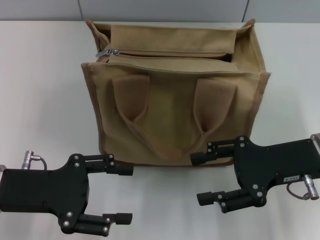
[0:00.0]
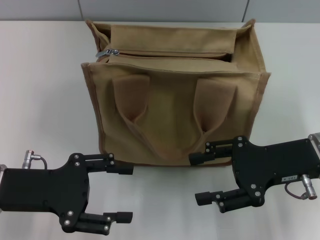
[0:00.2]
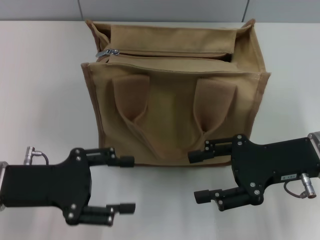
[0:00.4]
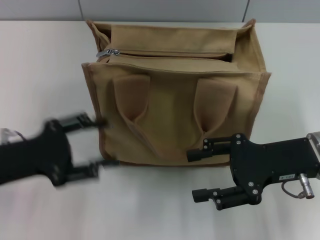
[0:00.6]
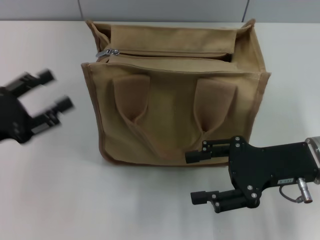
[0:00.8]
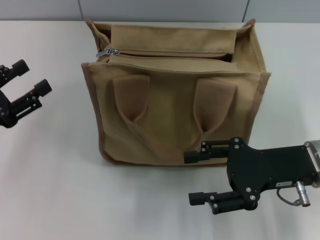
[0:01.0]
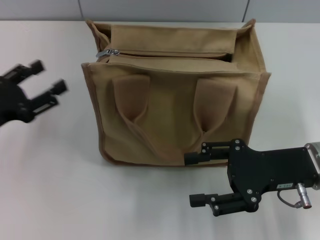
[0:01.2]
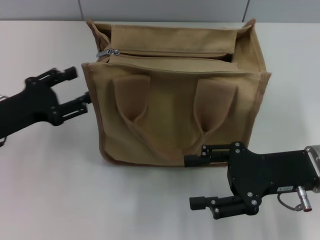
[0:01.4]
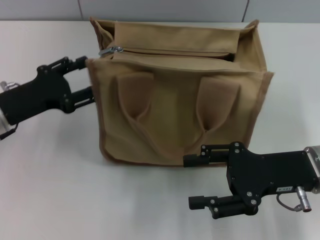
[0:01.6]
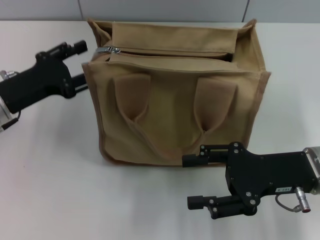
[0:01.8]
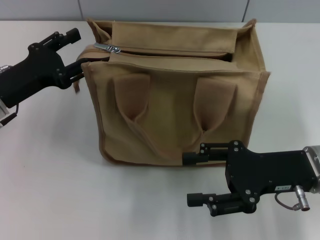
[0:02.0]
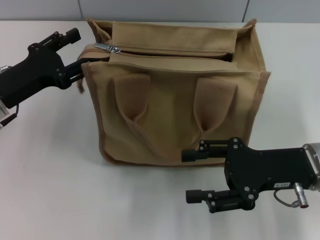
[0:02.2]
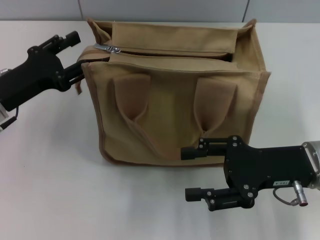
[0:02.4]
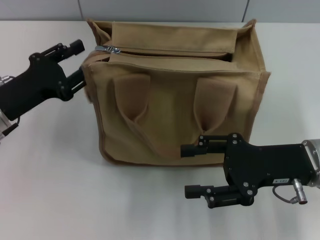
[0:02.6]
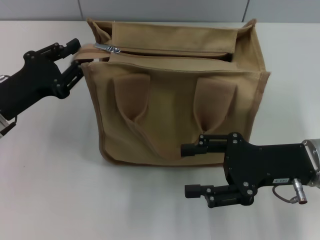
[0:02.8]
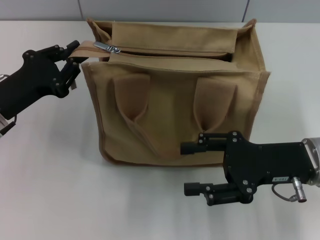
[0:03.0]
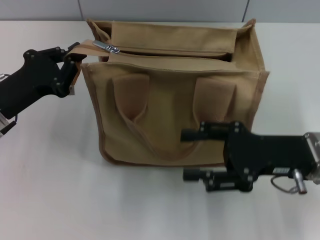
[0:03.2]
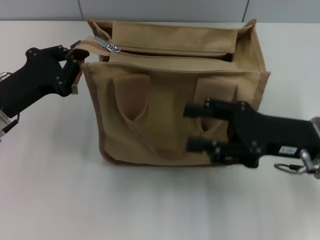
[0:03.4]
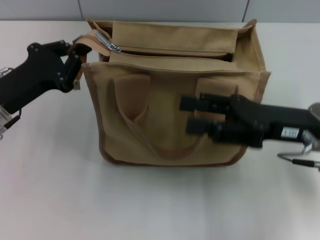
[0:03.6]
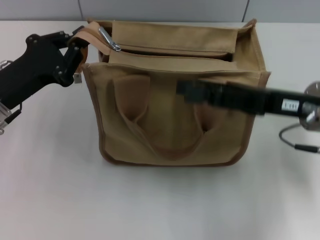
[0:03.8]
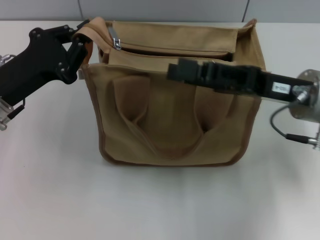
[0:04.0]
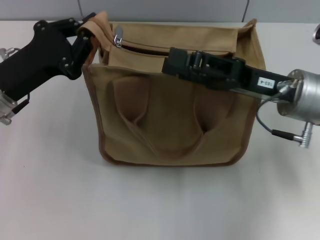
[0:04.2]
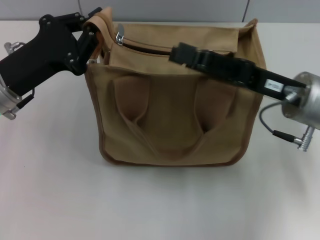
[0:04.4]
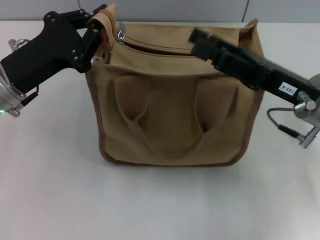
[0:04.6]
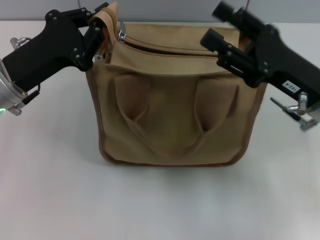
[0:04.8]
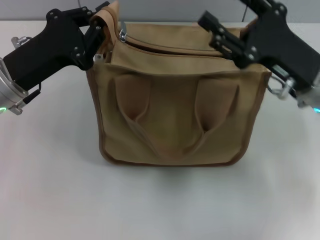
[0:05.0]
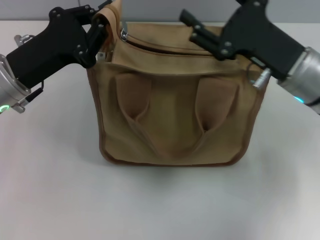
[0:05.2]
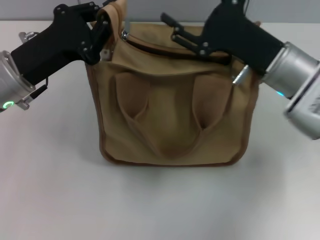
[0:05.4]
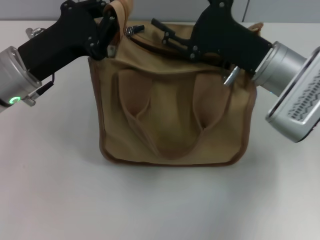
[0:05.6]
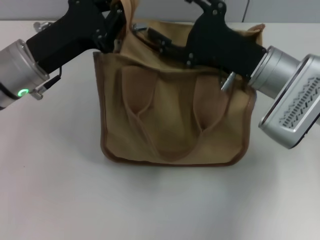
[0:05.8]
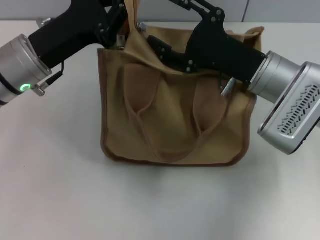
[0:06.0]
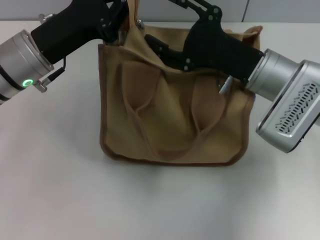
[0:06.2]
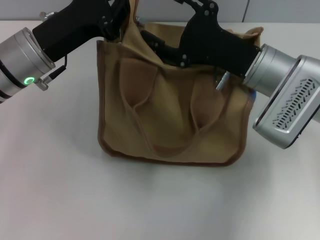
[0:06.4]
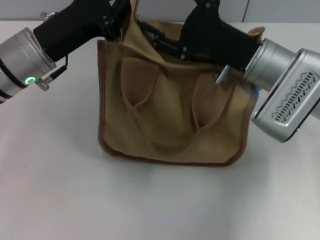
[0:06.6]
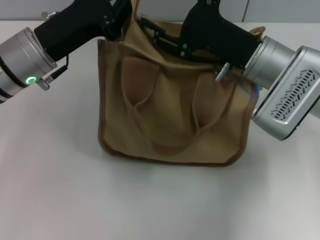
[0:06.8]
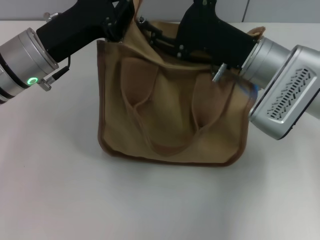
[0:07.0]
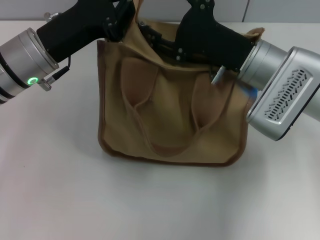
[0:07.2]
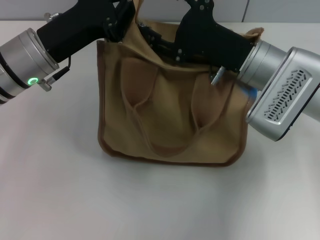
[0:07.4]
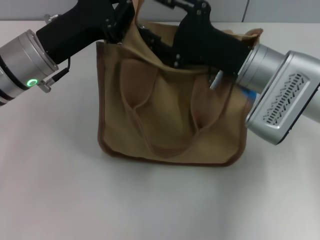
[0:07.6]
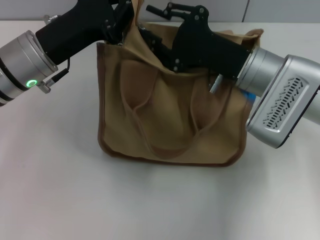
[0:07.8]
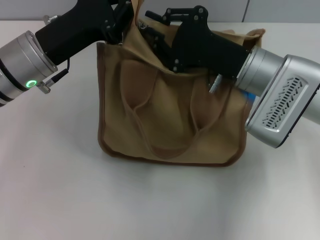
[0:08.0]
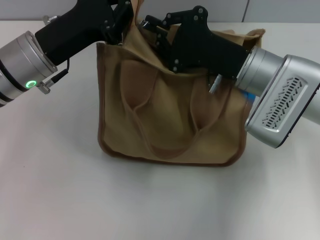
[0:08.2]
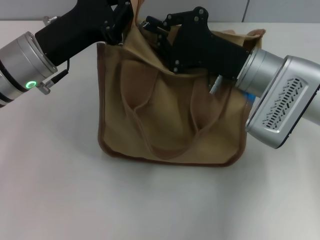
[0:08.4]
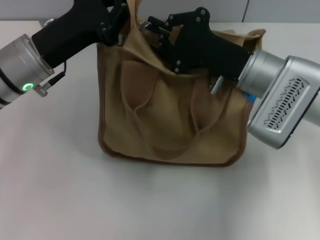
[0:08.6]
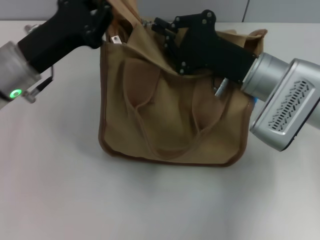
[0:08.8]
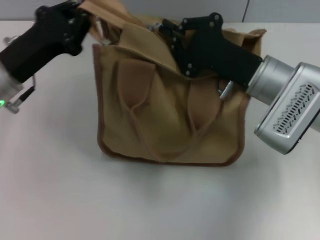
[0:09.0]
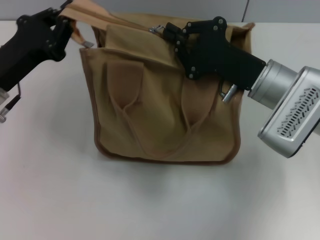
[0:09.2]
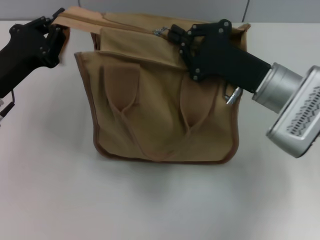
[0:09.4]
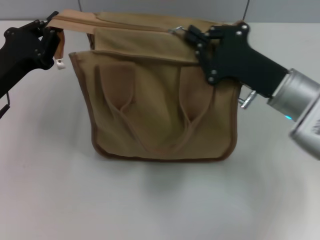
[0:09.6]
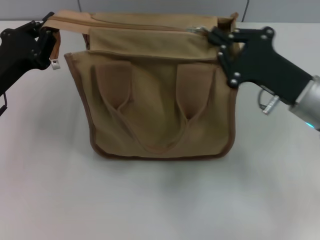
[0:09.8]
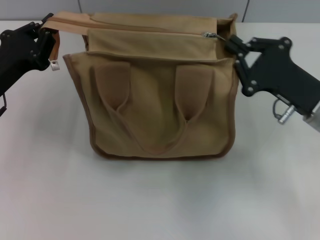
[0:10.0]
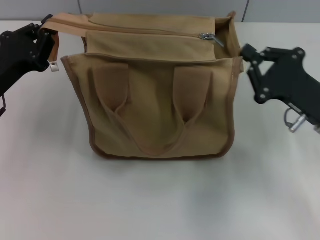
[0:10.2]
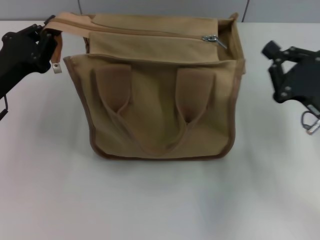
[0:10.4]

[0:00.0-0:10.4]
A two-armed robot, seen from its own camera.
Step, 0:00.0 to 0:10.2: Pull up the zipper with your right hand.
0:00.0 to 0:01.4: The left gripper heads forward, covering some 5 cm.
0:01.4 to 0:03.0: The left gripper closes.
0:03.0 to 0:04.4: The right gripper shifts by roughly 5 cm. Meanwhile the left gripper closes.
0:04.4 to 0:06.0: The right gripper moves about 5 cm; the left gripper changes place by about 5 cm.
0:06.0 to 0:07.4: The grippers move only a little.
0:07.4 to 0:09.0: The left gripper moves approximately 5 cm; the right gripper closes.
0:09.0 to 0:10.4: The right gripper travels to the right and backward by some 15 cm.

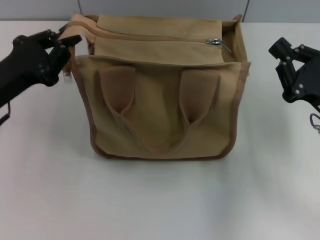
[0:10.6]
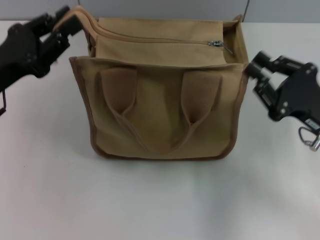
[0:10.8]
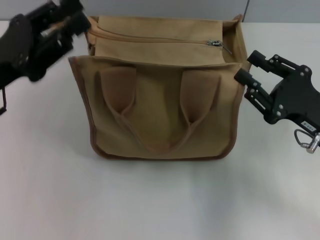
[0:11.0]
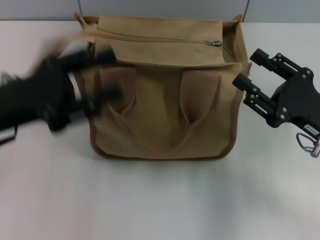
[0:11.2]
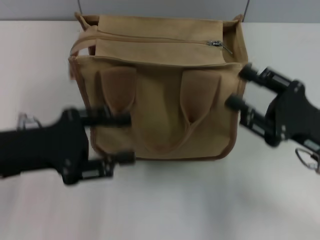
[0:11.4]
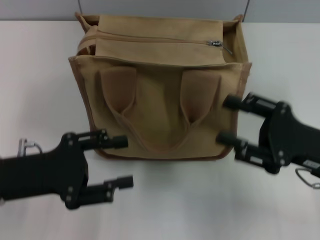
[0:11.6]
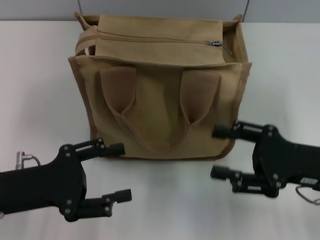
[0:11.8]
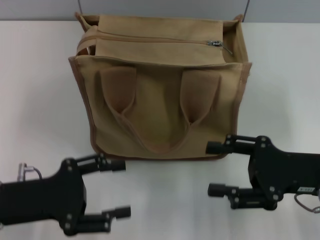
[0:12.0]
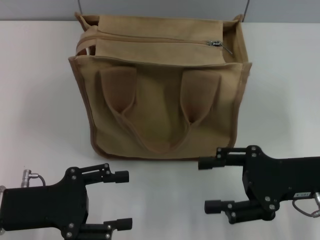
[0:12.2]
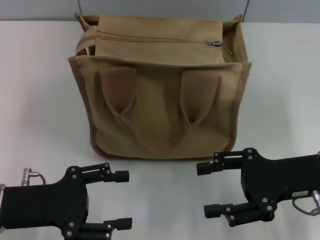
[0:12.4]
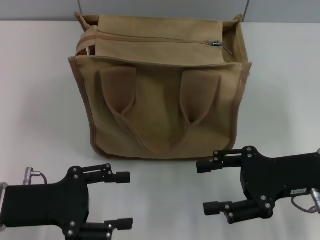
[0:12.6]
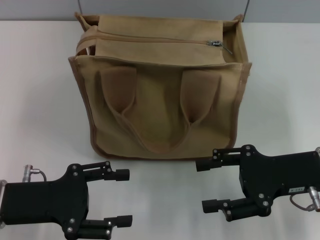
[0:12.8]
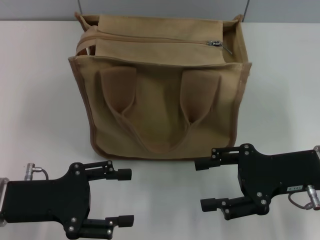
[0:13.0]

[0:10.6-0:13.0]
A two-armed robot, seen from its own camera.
Step, 0:10.6 to 0:11.4: Grab the zipper with your left hand.
0:10.6 to 0:11.8: The left gripper travels backward by approximately 10 cm, and opens up; the right gripper opens its fingers.
0:11.8 to 0:13.0: The grippers make only small movements.

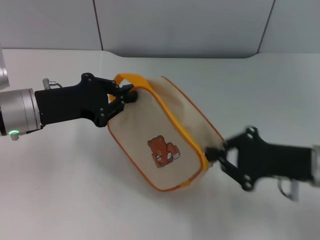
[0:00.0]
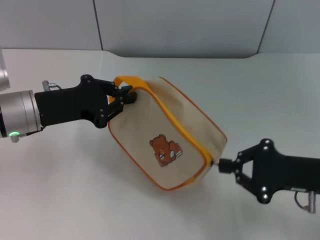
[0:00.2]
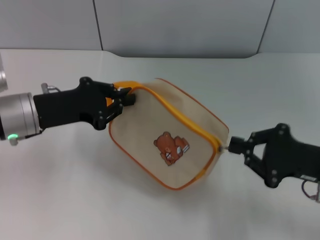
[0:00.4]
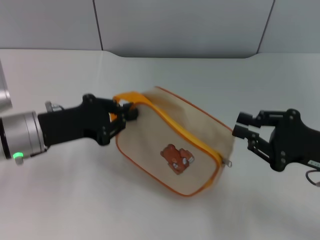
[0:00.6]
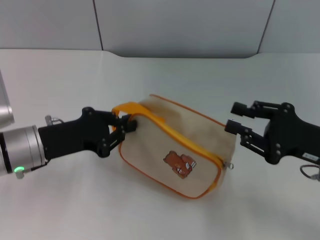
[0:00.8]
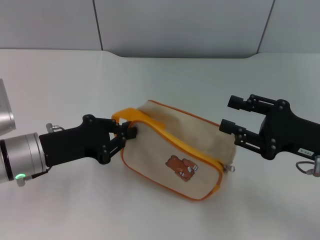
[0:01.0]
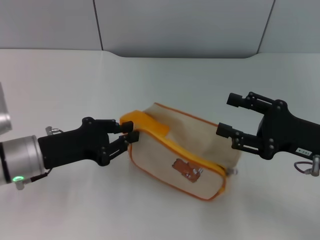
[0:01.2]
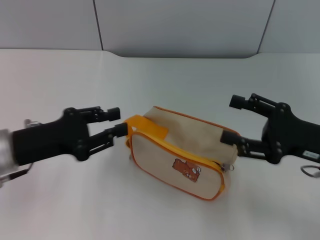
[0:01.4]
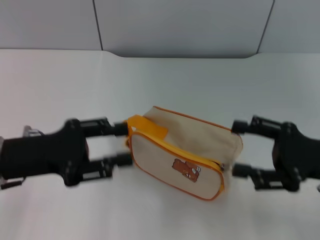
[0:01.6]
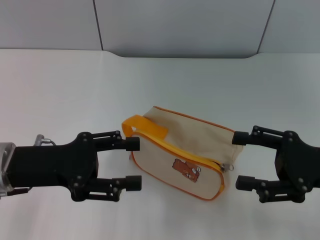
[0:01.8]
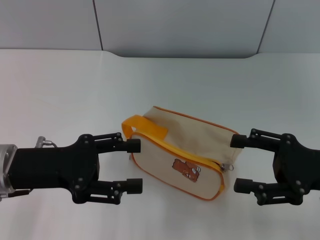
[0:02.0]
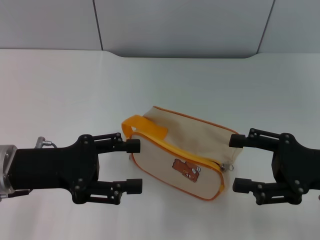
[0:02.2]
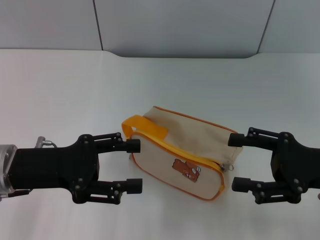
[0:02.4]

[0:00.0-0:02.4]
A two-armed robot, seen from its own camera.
Step, 0:00.8 to 0:01.4: Place the bag on the table with left gripper.
0:00.0 to 0:01.2: The left gripper moves about 5 cm, while the right gripper opens.
0:01.2 to 0:02.4: The left gripper opens. The right gripper opens up.

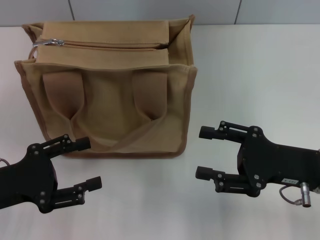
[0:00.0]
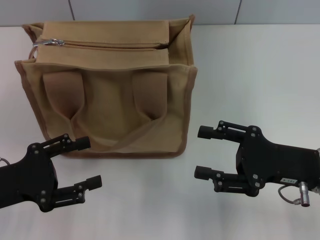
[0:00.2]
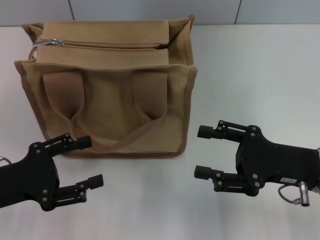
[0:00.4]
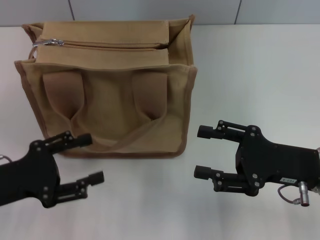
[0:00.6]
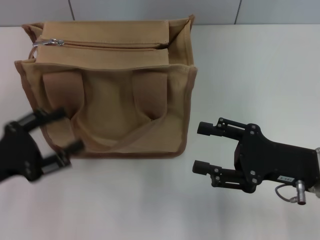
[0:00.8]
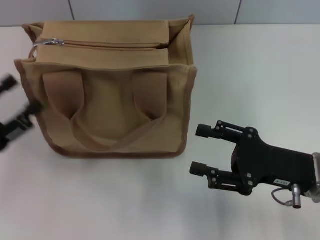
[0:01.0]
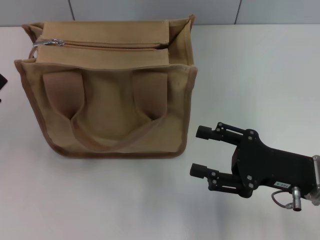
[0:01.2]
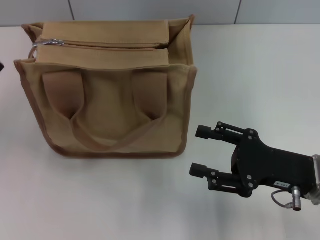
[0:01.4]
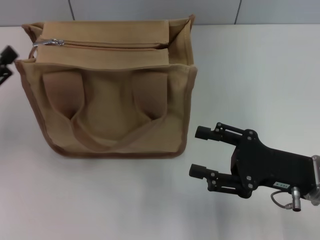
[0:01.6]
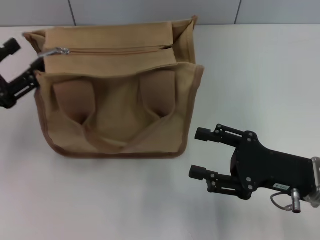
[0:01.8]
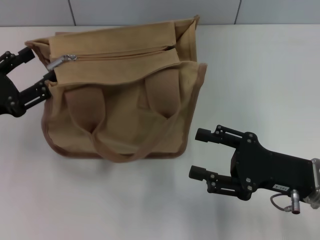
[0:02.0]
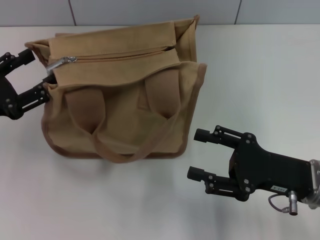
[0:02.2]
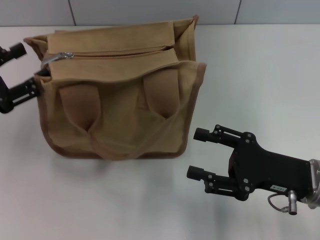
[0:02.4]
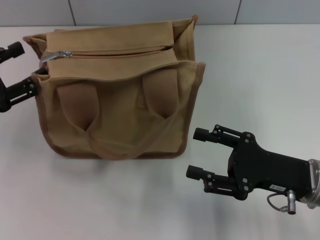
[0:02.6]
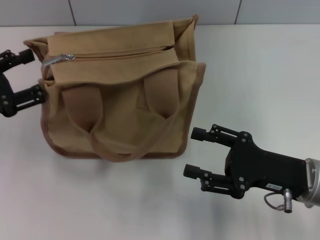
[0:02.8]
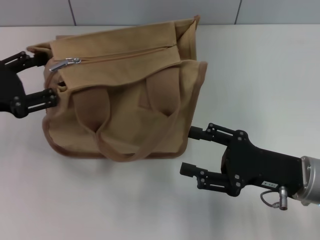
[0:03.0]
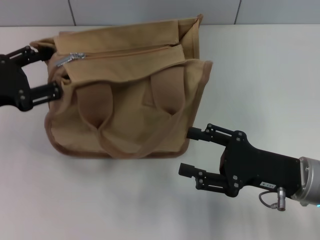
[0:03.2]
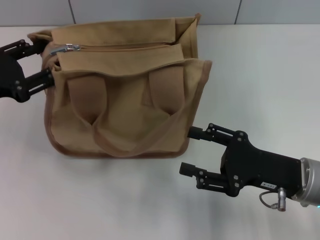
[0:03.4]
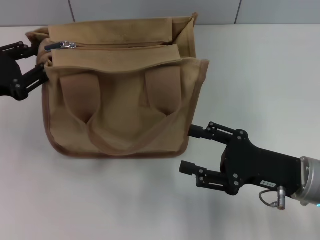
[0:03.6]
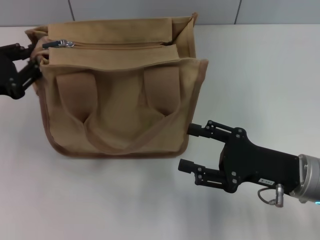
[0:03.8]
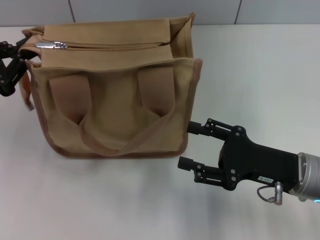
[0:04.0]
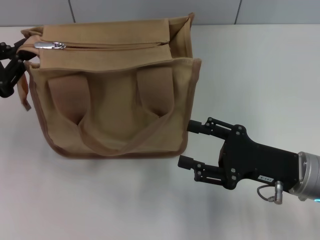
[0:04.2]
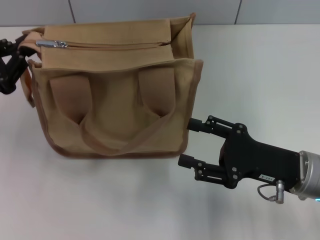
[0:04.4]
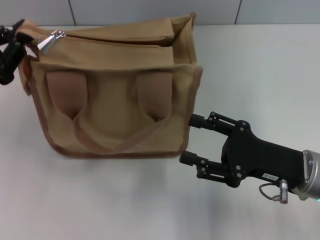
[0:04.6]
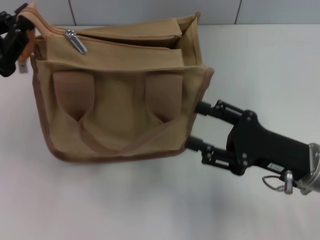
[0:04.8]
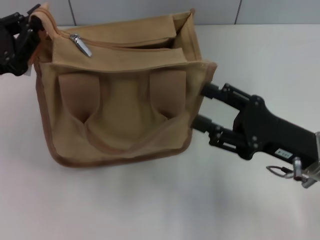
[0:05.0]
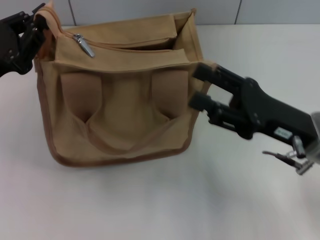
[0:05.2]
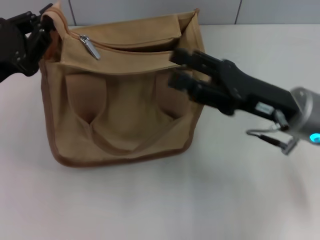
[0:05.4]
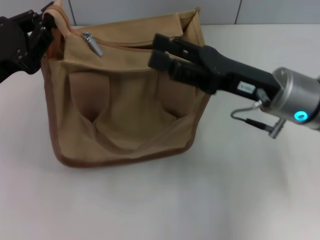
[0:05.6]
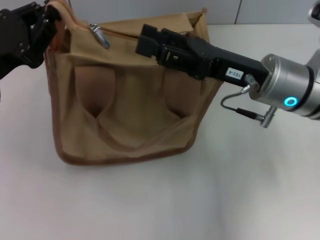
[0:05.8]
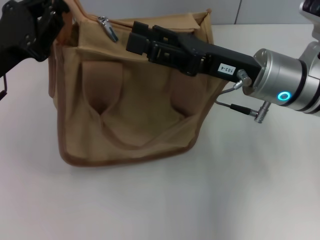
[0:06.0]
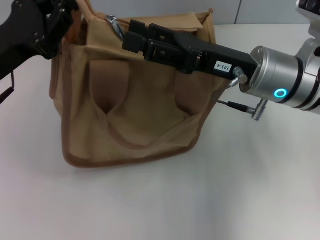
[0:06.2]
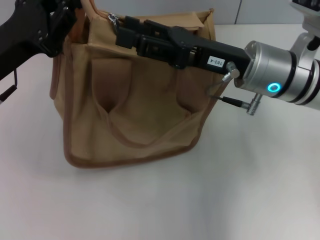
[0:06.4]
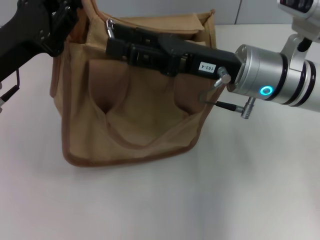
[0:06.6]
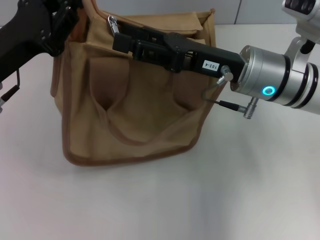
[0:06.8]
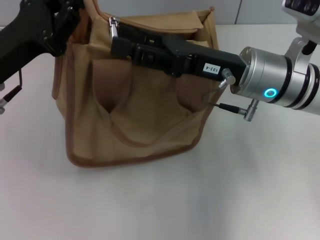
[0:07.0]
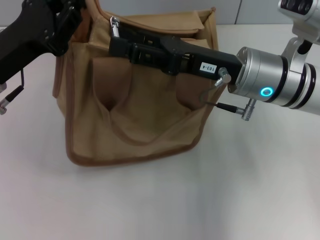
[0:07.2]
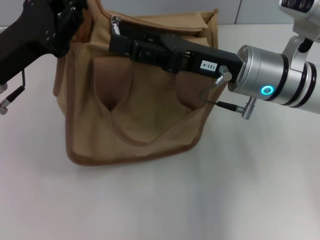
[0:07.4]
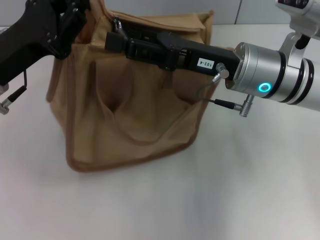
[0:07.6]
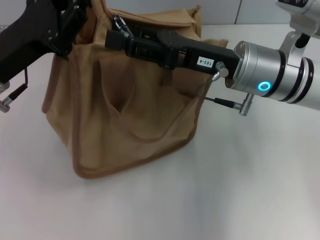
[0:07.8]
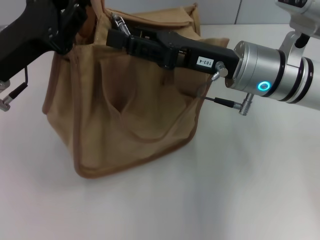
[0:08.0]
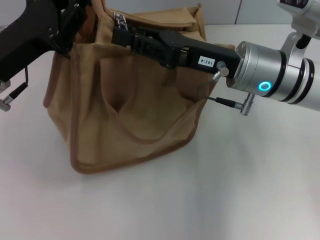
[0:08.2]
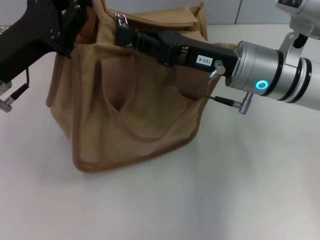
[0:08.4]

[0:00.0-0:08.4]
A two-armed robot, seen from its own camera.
0:00.0 to 0:01.4: The left gripper shifts approximately 5 cm to the left.
0:01.4 to 0:02.8: The left gripper heads forward, covering approximately 5 cm.
0:02.8 to 0:04.2: The left gripper closes up.
0:04.2 to 0:05.6: The left gripper travels to the right by roughly 5 cm, while the right gripper travels forward and upward by approximately 10 cm.
0:07.0 to 0:08.4: The right gripper closes its fingers.
